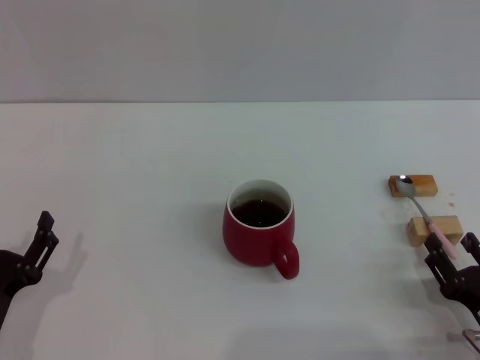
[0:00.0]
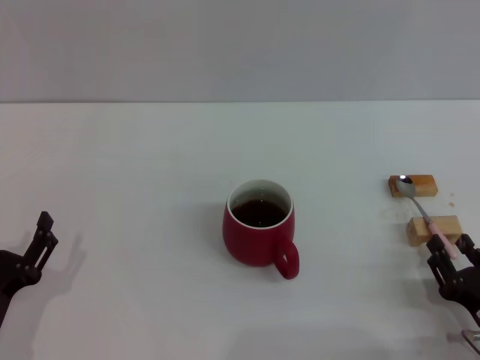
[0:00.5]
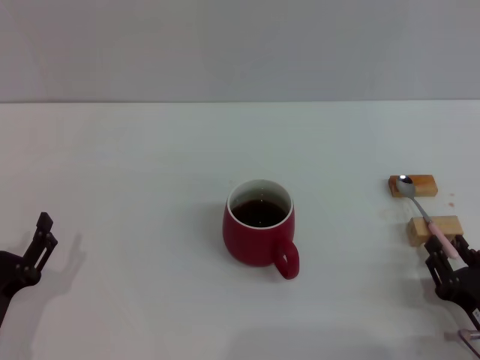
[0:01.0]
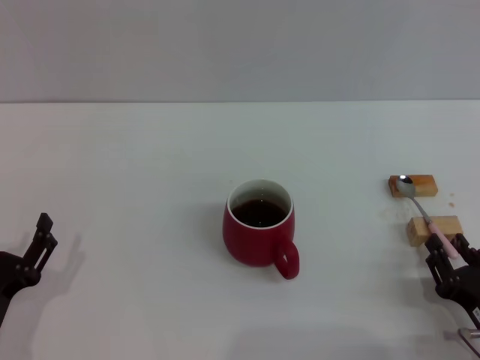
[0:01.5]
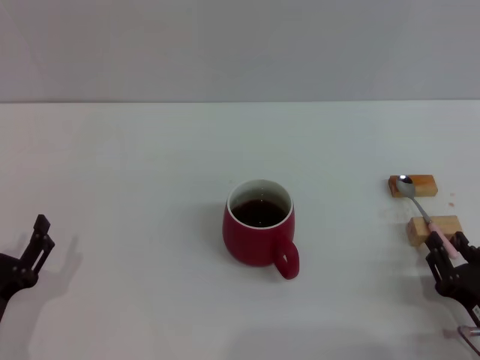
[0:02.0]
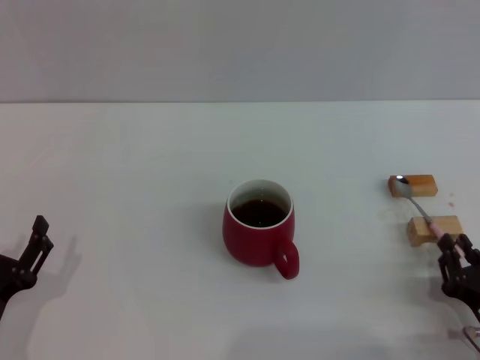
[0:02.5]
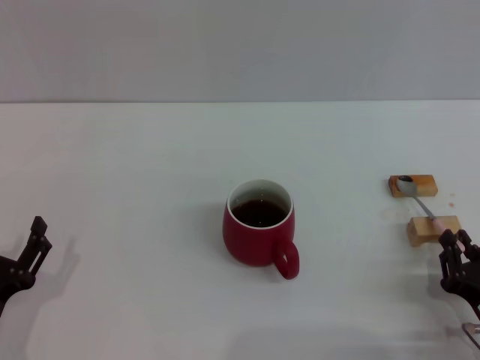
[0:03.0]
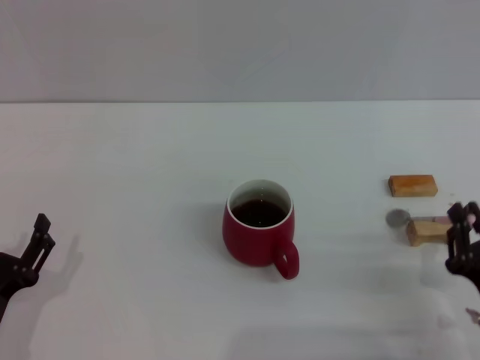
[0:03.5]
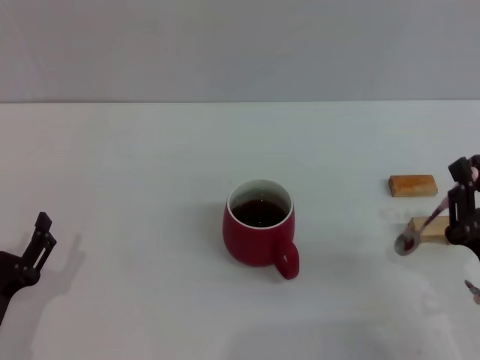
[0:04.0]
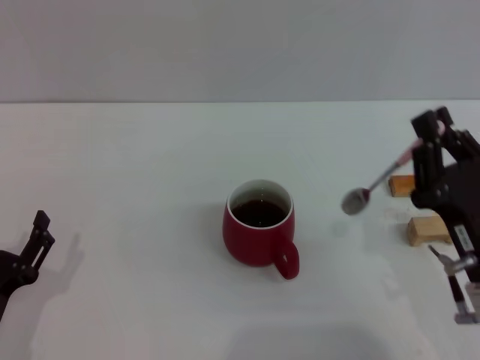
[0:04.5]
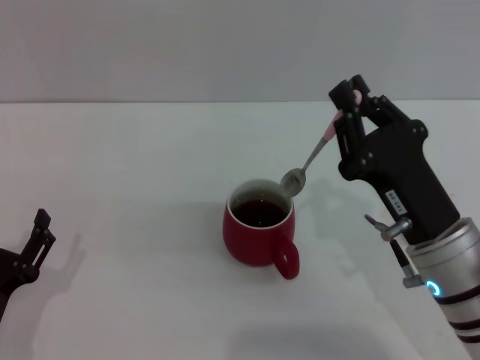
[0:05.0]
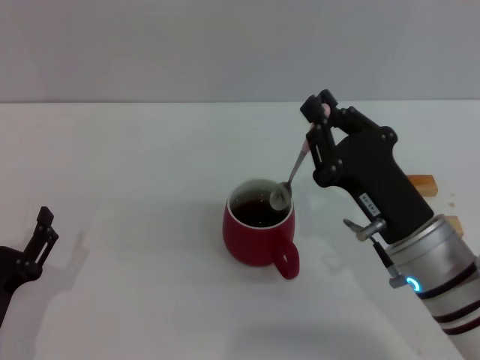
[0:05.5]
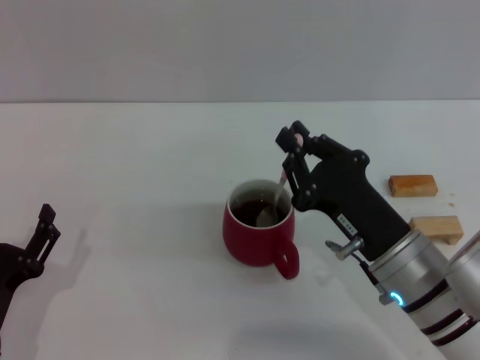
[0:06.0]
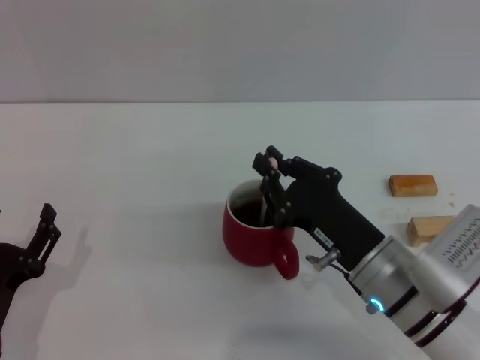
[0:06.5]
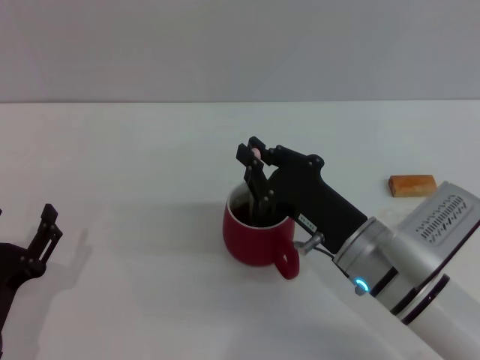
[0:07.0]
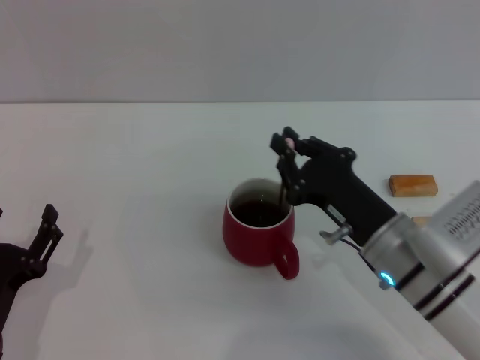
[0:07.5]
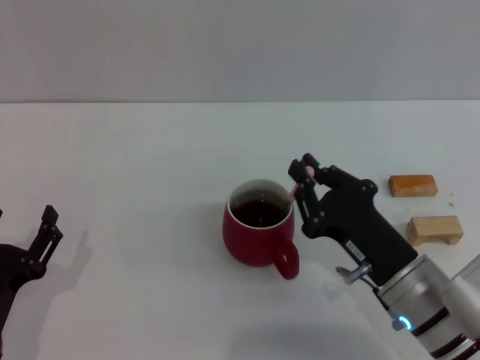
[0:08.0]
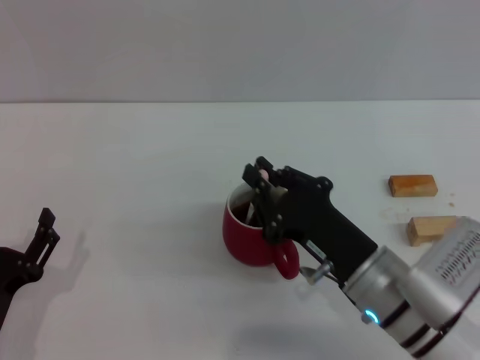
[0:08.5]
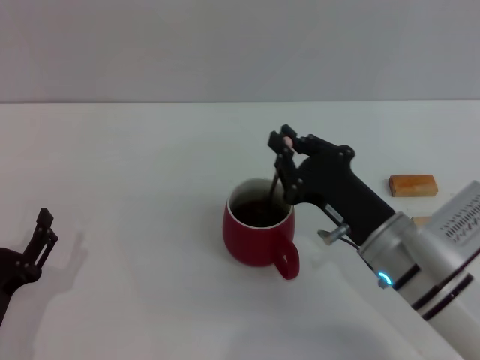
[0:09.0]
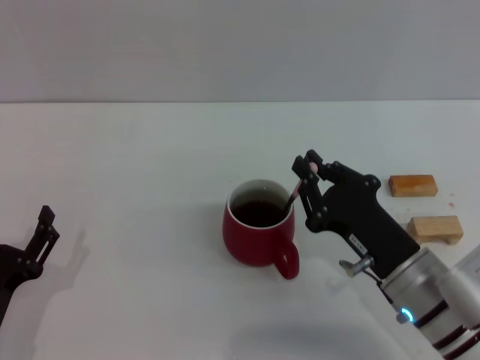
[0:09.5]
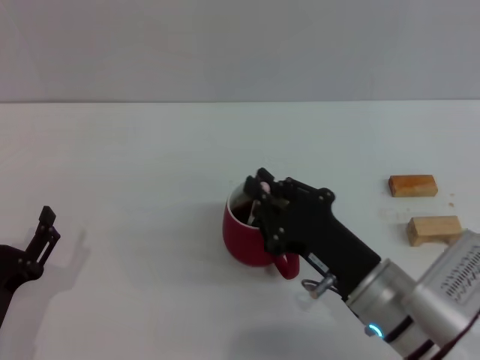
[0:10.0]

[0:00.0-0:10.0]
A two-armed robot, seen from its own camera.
Task of the whole recording: Move the red cup to the center, lift the pink spoon, stir it three times in the cup, and put the spoon into the cup.
Step, 0:00.0 to 0:04.0: Pick up the spoon with the right gripper.
0:00.0 to 0:02.0: The right gripper closes its fingers.
0:02.0 to 0:04.0: The right gripper moves upward, approximately 5 cm, and closes its fingers.
0:04.0 to 0:06.0: The right gripper is displaced to the left and forward by roughly 10 cm.
0:06.0 to 0:10.0: The grippers move only a little.

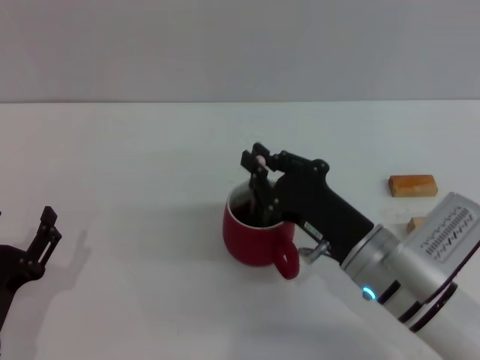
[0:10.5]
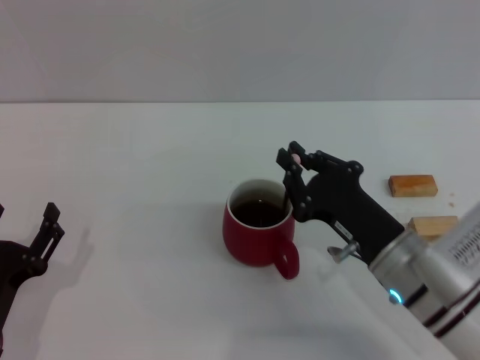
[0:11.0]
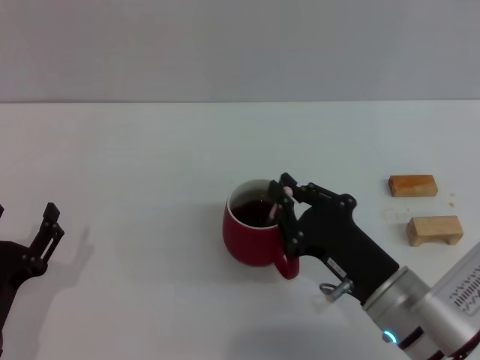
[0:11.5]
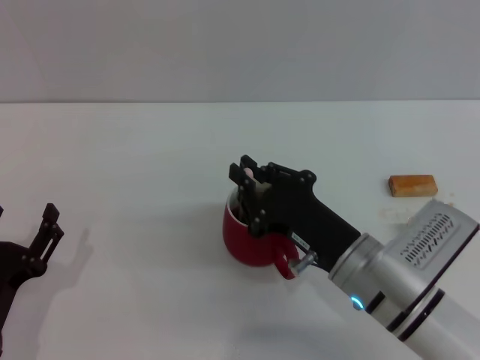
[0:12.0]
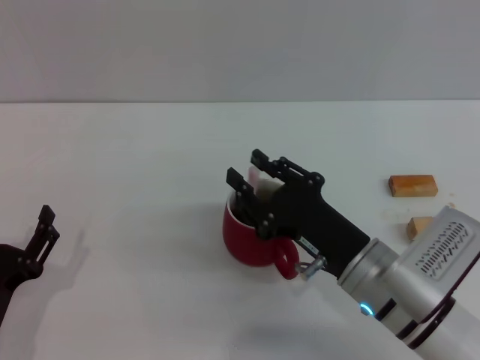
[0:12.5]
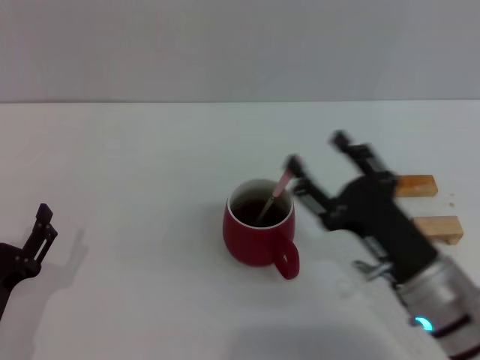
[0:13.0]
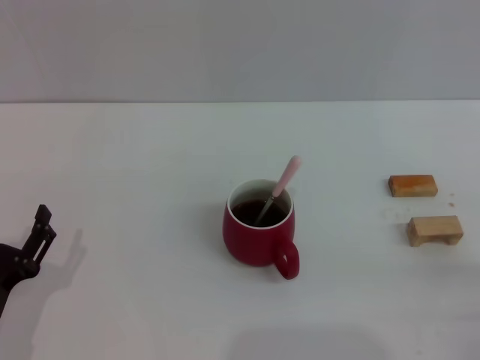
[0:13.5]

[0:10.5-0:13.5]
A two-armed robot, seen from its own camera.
Task of the whole recording: Move the red cup to the center, lift the pink spoon, stir it three times in the cup, and put the spoon into the cup.
Step, 0:10.5 to 0:12.5: Stir the coffee in the cup with the right gripper.
0:10.5 to 0:12.0: The grippers make only small movements.
0:12.0 to 0:13.5: The right gripper shifts some 20 cm to the right and backward, and opens its fingers.

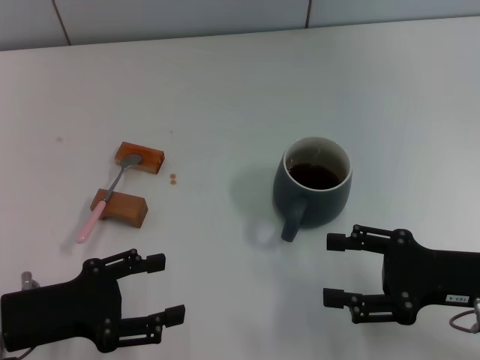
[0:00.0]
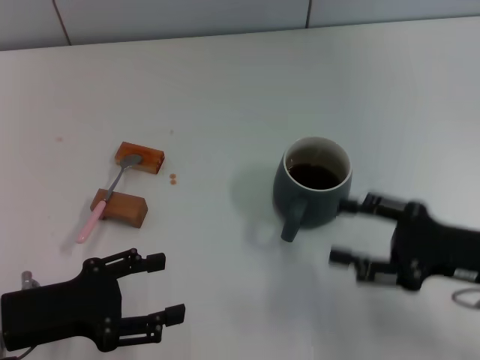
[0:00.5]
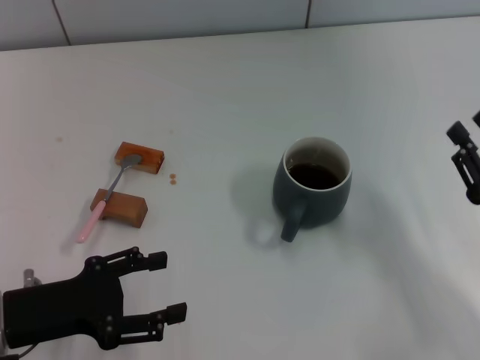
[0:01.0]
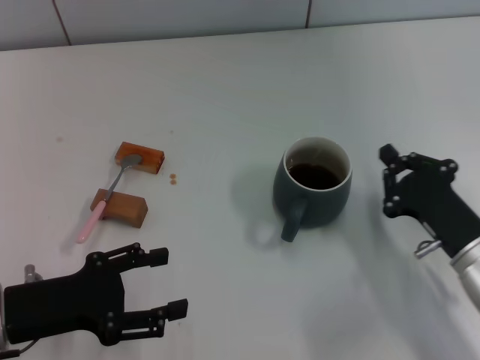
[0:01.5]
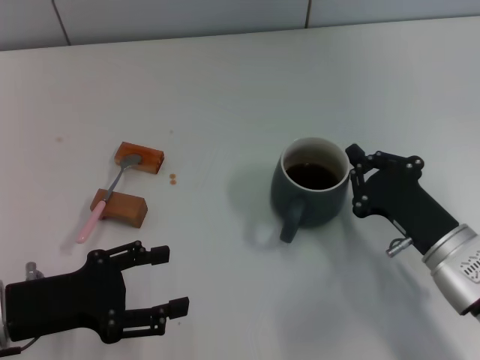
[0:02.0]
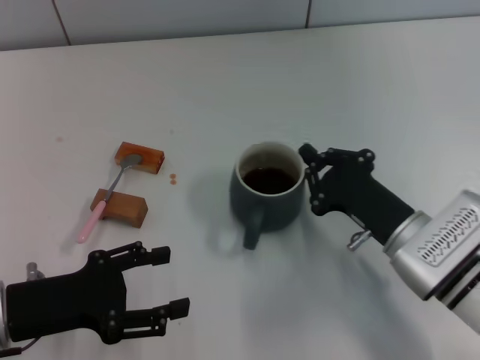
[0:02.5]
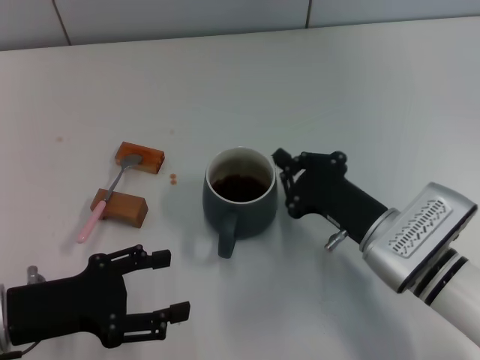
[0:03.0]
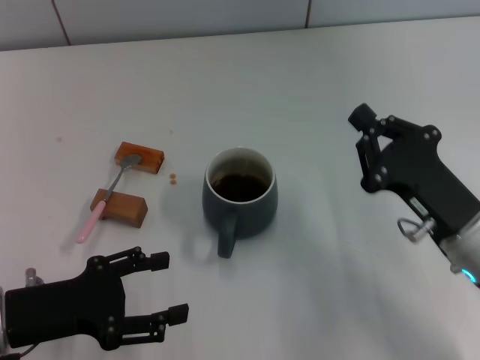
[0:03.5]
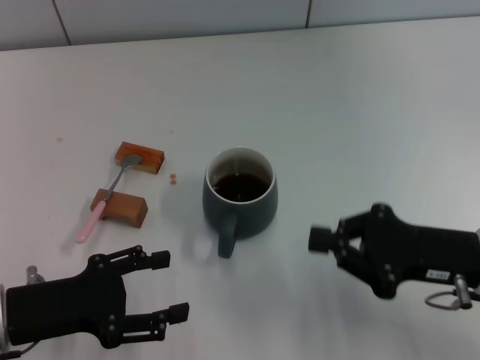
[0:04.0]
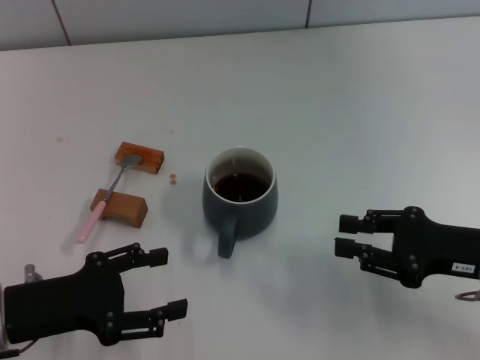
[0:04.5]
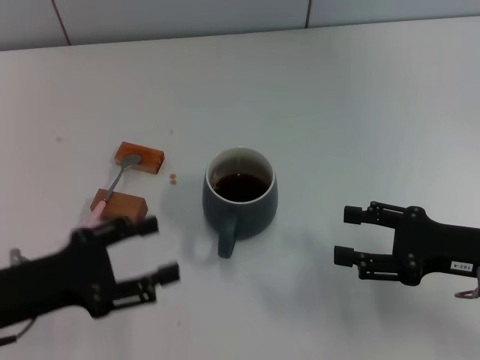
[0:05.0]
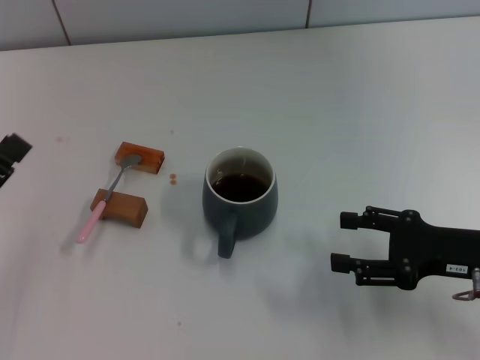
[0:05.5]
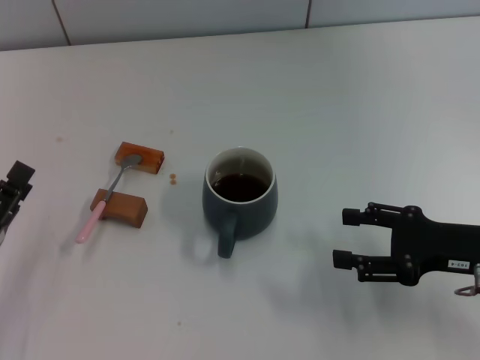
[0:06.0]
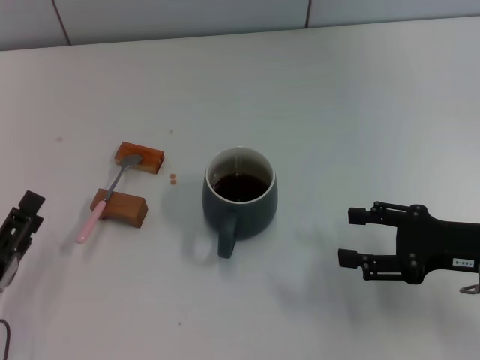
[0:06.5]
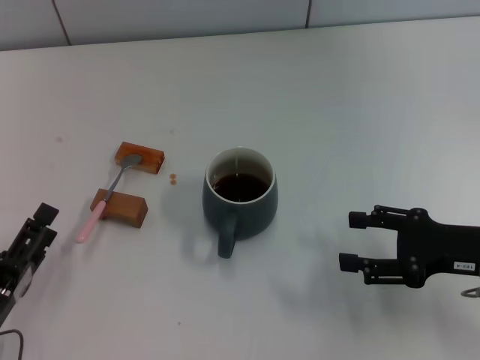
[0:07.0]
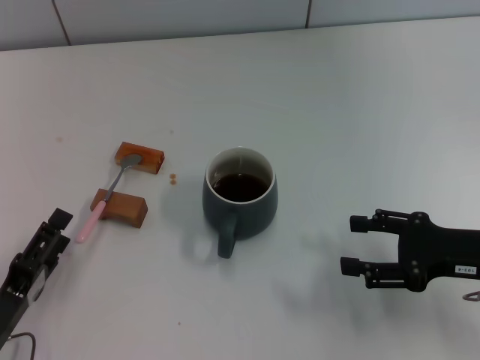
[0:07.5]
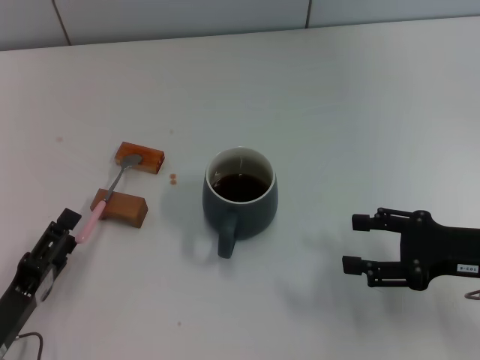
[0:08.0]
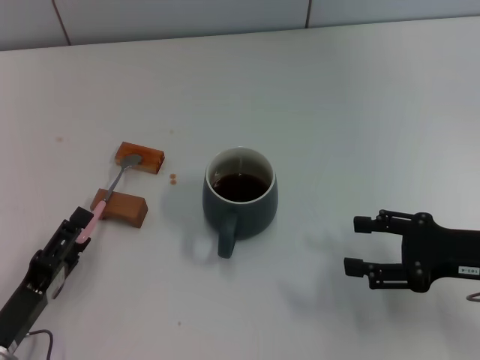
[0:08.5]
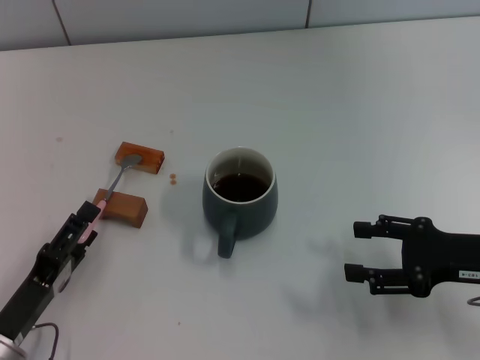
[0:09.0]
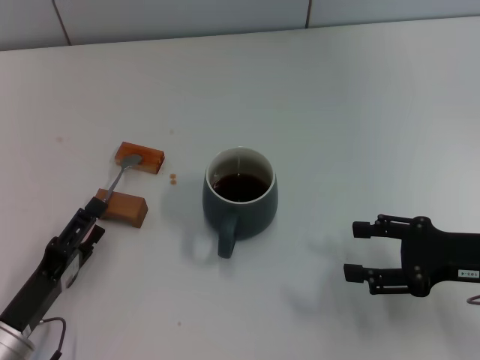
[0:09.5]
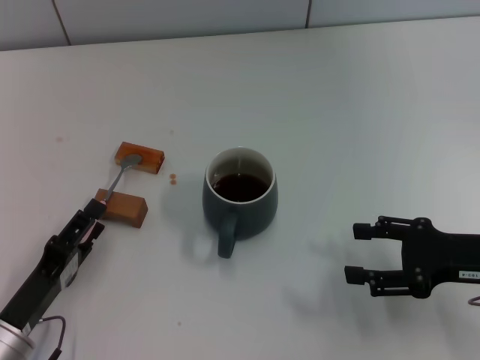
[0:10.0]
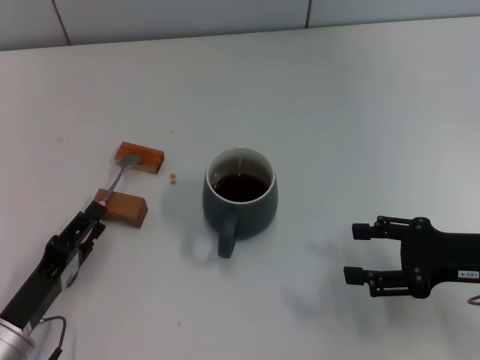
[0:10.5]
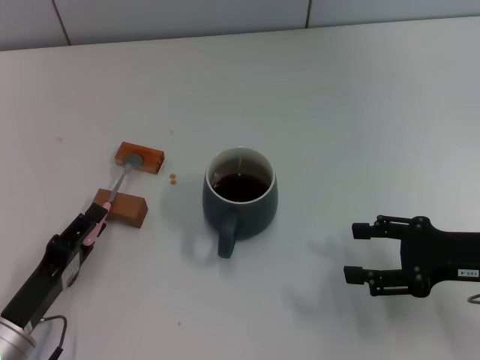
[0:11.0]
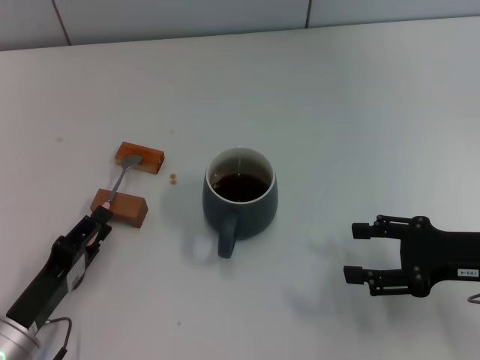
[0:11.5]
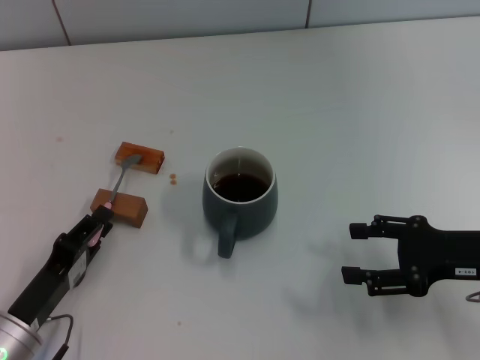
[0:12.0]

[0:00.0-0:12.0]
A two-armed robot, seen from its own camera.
Task of the whole recording: Move the grey cup to the center, lift the pink spoon, stir it three times in the cup, and put the spoon into the cup.
Step, 0:00.0 to 0:02.5: Move the cup with coffee to the center of view with the right gripper.
0:00.0 to 0:02.0: The right gripper moves downward and to the left, about 5 cm, and closes up.
0:02.0 to 0:04.0: The right gripper goes roughly 5 cm upward.
0:04.0 to 0:06.0: The right gripper opens up. Meanwhile the left gripper changes place by about 5 cm.
0:06.0 to 0:10.0: The grippers make only small movements.
0:10.0 to 0:12.0: The left gripper closes.
